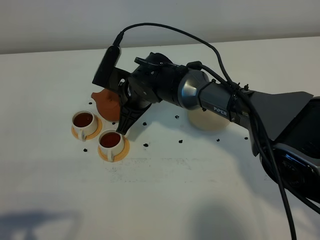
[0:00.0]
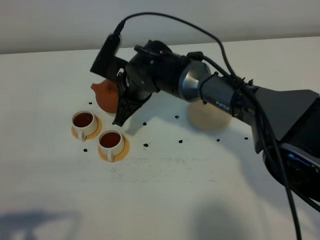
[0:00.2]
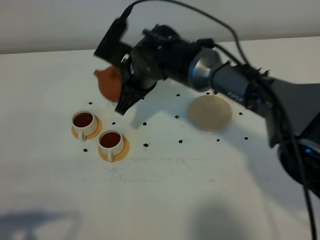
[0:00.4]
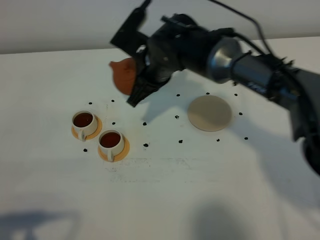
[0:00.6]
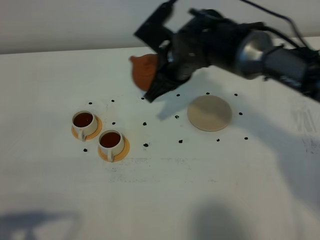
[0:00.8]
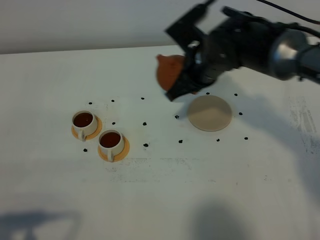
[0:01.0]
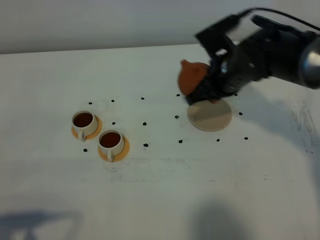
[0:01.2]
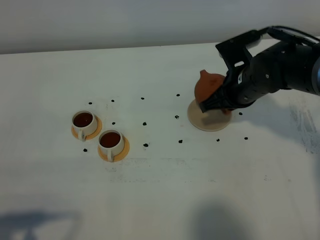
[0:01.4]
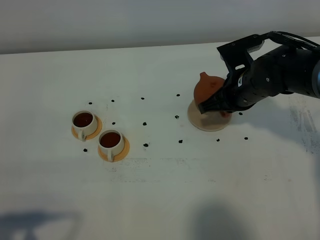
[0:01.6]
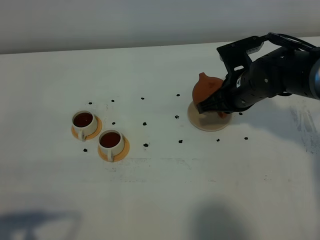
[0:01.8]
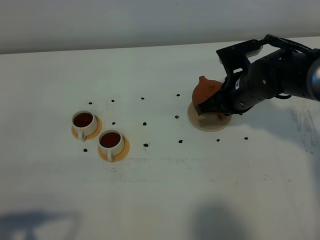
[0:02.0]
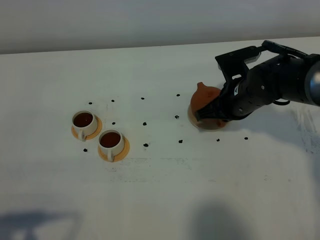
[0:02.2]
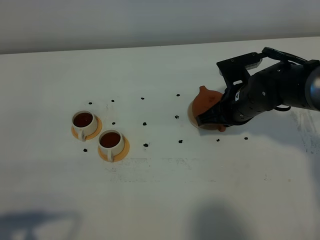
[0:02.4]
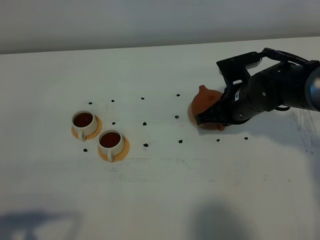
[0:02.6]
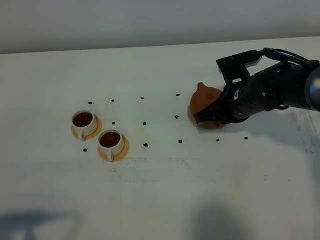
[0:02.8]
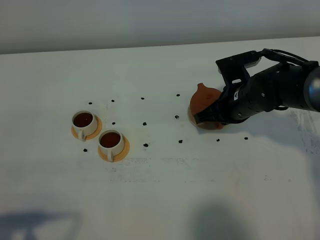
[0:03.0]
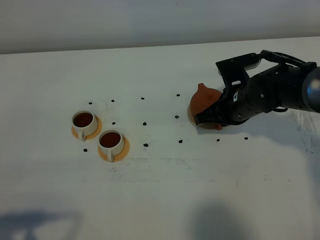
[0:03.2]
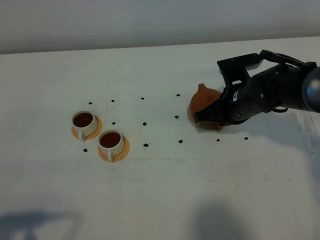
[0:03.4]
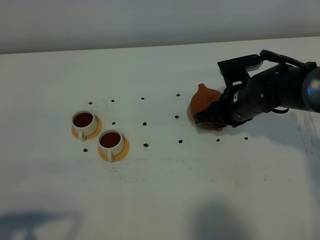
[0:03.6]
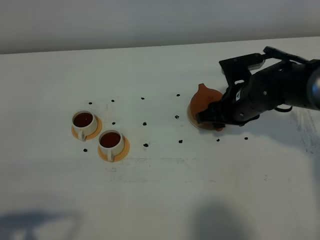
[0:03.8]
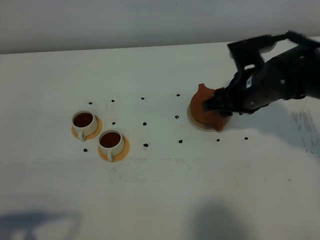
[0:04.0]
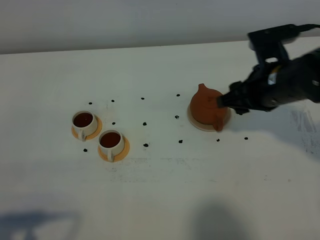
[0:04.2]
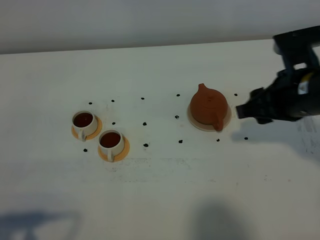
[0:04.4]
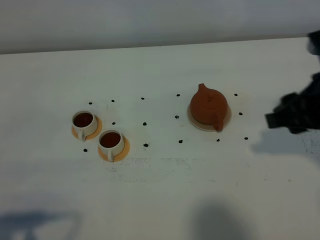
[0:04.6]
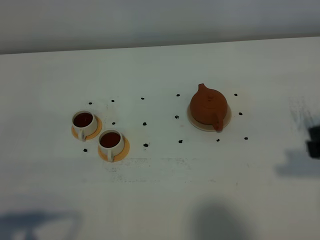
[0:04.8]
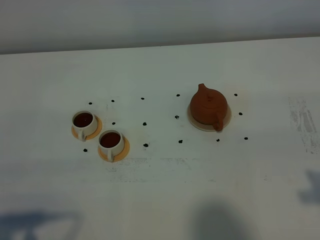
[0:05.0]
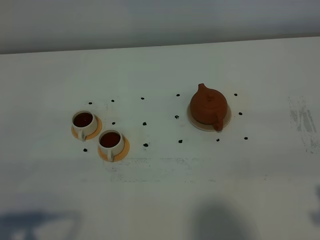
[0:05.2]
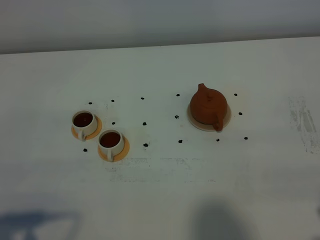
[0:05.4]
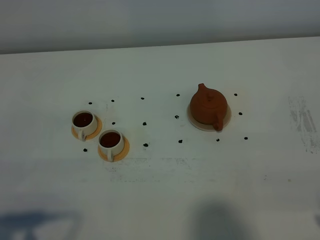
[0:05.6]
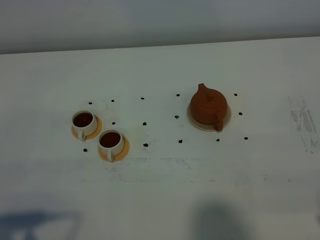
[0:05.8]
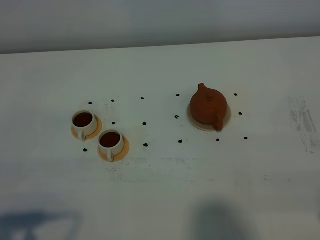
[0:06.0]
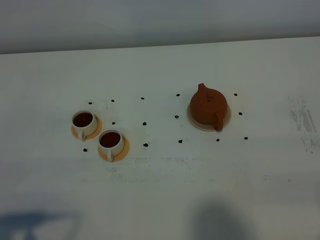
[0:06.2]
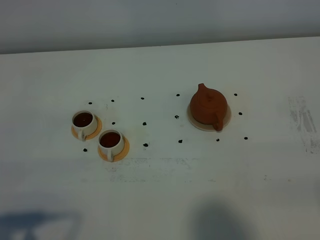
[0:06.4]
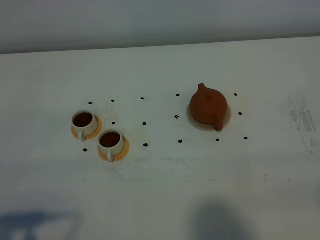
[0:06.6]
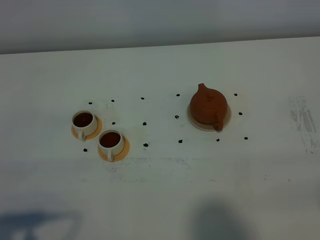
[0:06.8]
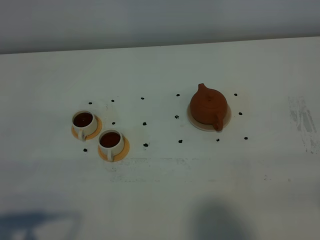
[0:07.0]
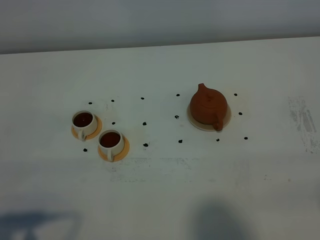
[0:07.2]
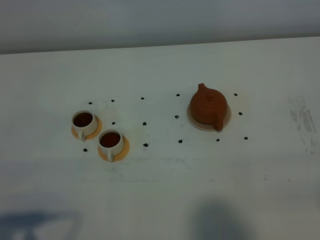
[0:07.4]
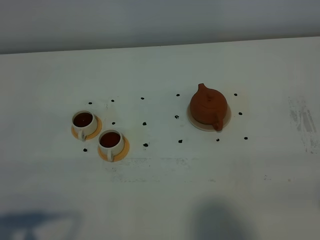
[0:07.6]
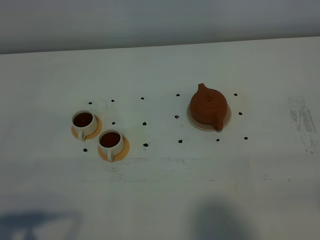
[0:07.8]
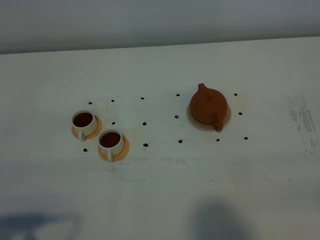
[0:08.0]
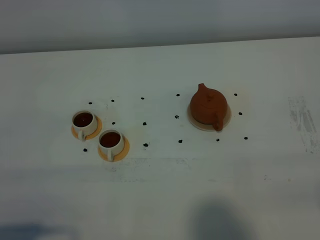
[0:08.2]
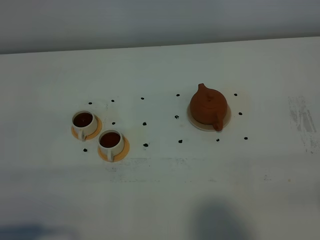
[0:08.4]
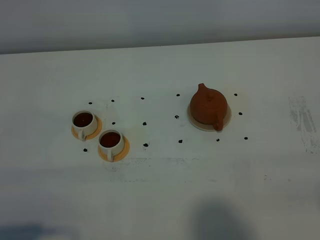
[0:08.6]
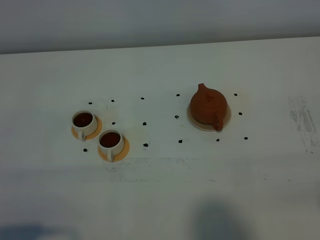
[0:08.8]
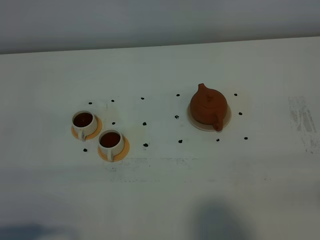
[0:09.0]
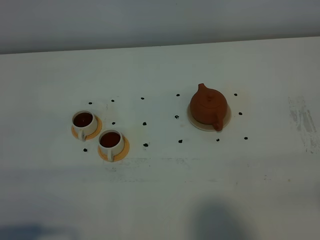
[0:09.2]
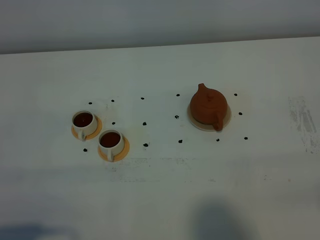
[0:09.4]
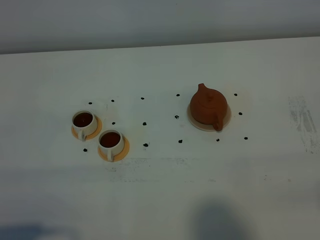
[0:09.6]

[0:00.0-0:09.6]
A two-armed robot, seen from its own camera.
Task of the whole recording: grasp the brown teapot and pour the tea into the two white teacups one by one, put the brown teapot back in its original place.
0.0 to 1.6 s: The right gripper moves to the right, some 20 cm.
1.6 to 3.2 s: The grippers move only a little.
3.2 to 4.8 s: The right gripper heads backward, upward and to the right, covering some 30 cm, and opens.

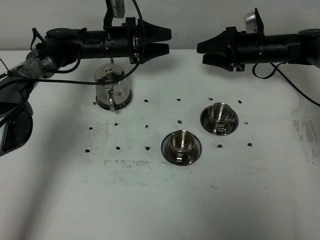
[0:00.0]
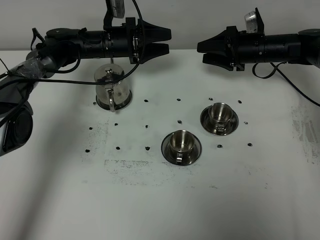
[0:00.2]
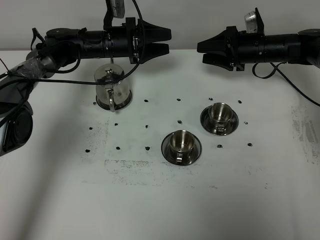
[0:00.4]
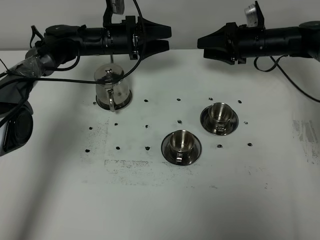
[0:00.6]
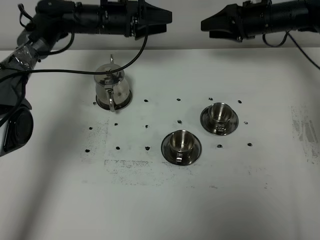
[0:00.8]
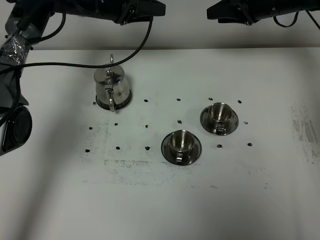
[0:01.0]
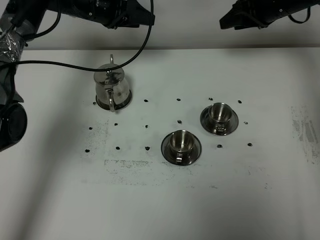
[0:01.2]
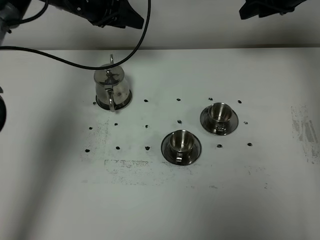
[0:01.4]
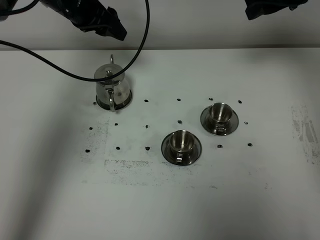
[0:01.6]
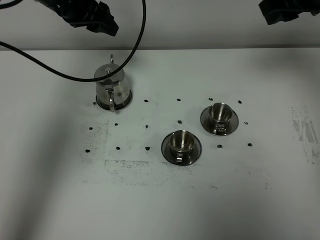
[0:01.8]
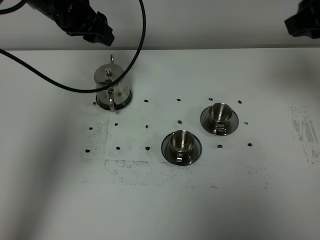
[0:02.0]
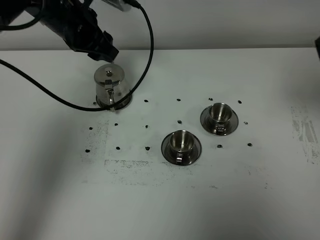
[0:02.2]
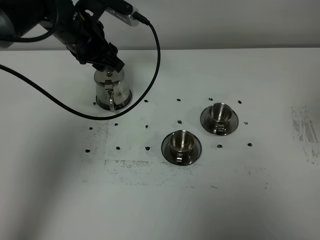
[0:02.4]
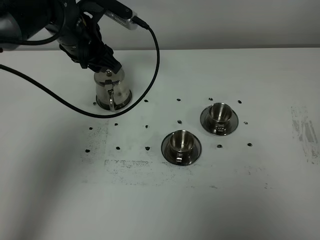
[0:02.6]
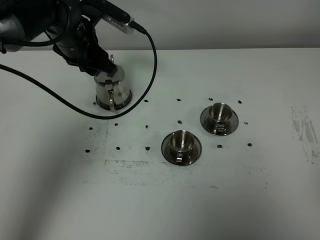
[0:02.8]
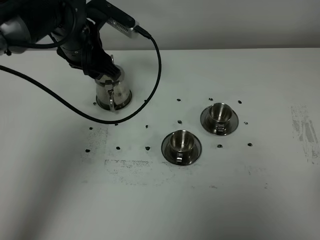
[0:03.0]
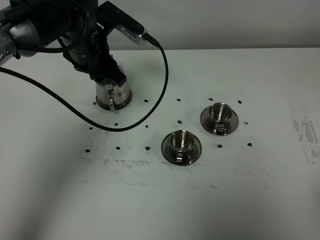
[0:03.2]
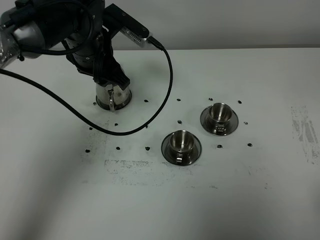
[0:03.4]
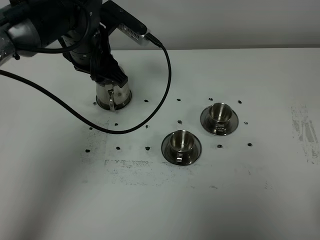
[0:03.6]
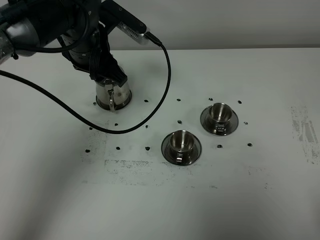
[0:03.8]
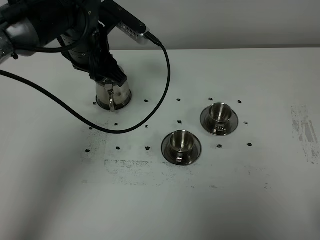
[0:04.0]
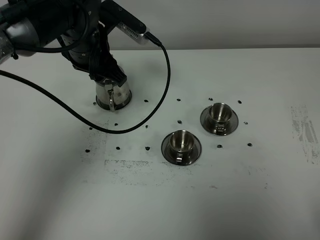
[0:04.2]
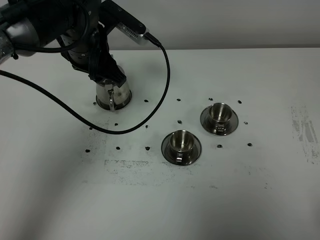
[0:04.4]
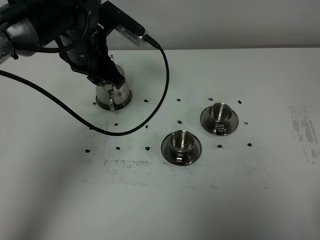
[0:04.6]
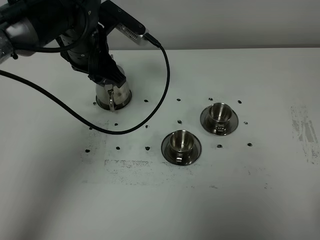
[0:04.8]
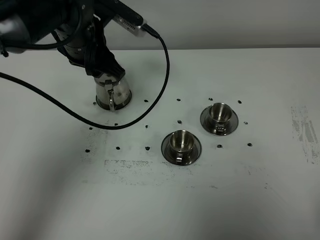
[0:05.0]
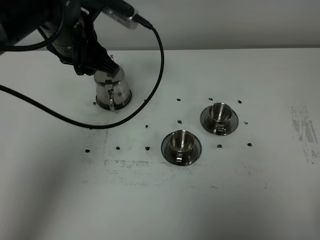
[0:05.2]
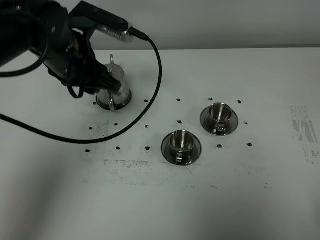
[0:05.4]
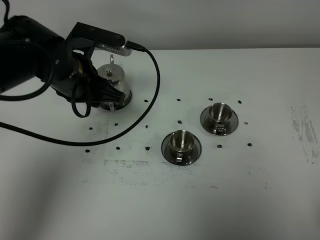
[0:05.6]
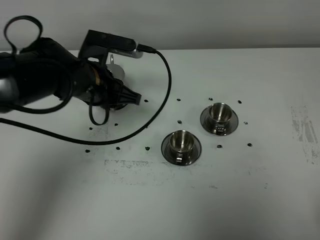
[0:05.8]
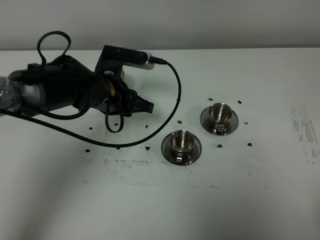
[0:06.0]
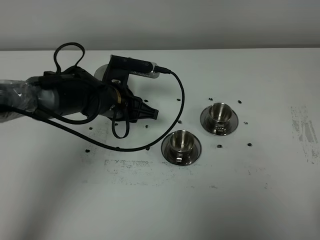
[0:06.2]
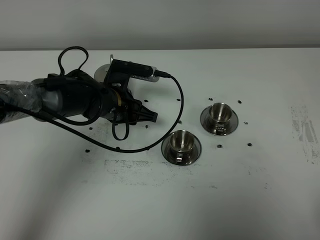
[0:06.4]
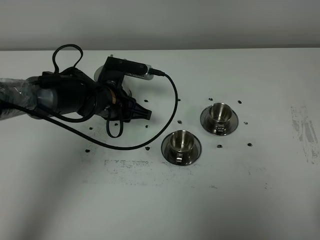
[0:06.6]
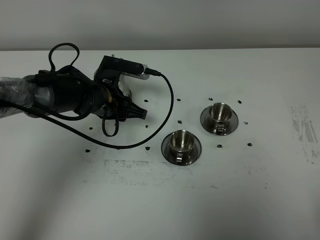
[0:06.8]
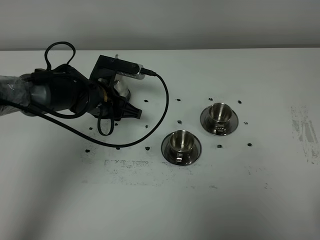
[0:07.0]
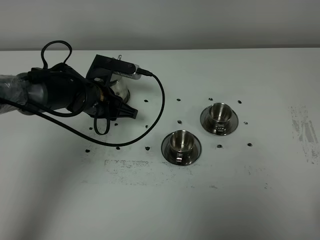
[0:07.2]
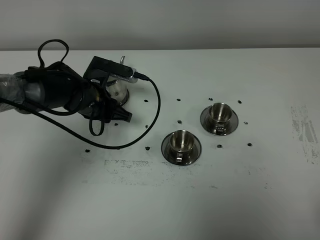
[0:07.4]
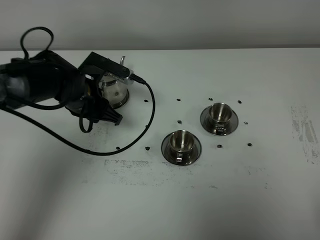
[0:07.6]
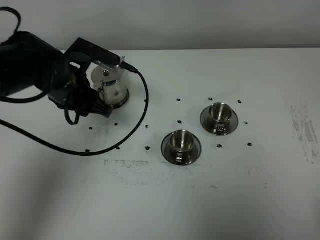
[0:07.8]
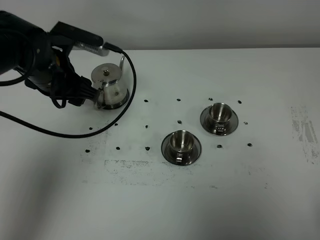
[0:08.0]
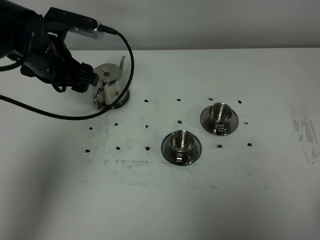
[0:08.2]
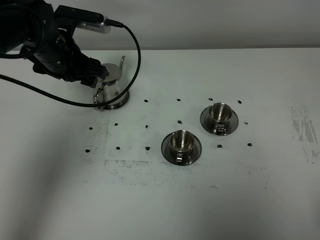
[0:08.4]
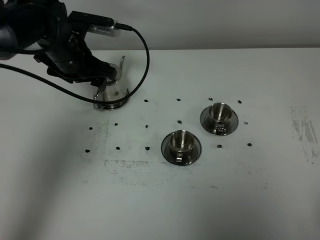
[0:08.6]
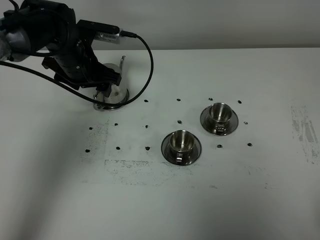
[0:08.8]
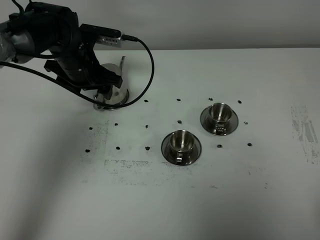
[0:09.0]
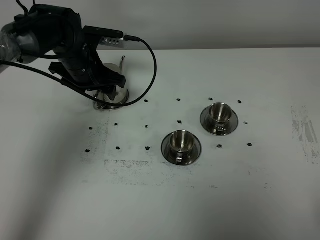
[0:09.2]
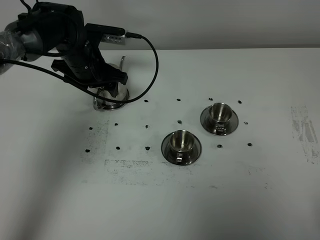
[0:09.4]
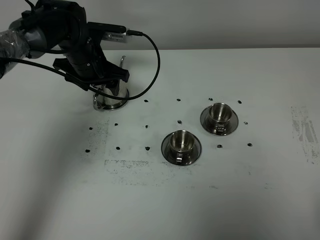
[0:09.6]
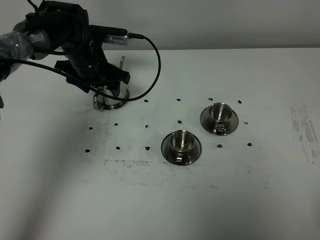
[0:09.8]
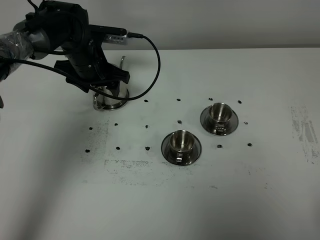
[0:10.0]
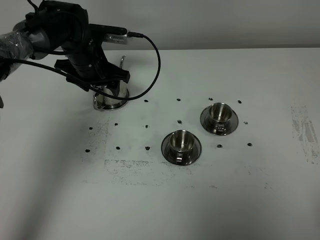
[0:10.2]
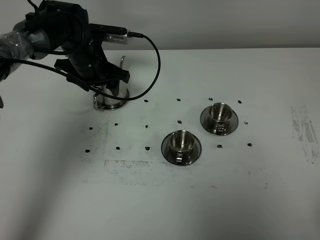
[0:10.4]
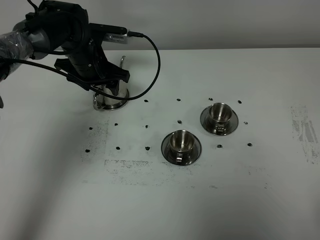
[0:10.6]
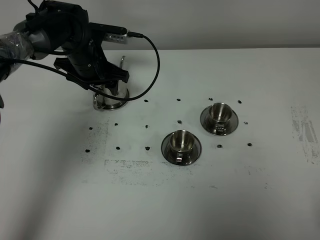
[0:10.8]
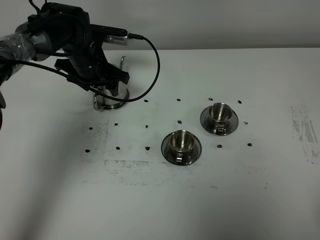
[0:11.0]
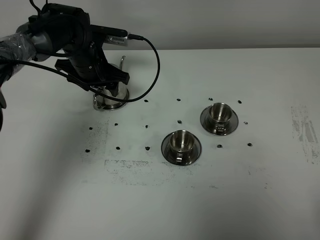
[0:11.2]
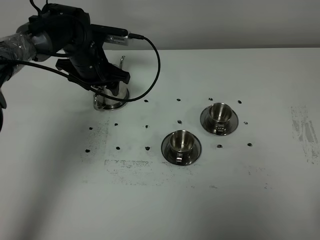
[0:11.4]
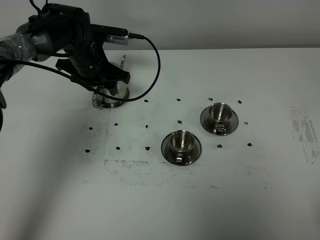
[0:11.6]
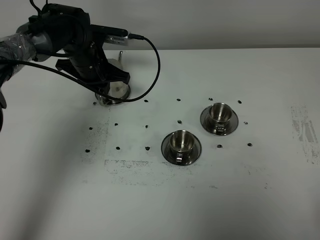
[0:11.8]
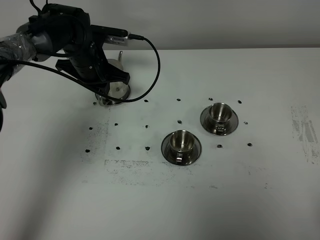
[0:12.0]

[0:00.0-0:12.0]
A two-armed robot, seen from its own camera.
Task of the whole recording: grasp the stainless steel teapot and pour the tea into the two stainless steel teacups one by one, put the stainless steel teapot back in its original place.
0.0 to 1.6 s: The left gripper travels upward by some 15 cm; the right gripper goes some 20 cm upward.
1.6 to 3.0 s: The right gripper heads backward, covering about 40 cm, while the left gripper is displaced backward by roughly 10 cm.
3.0 to 4.4 s: The right gripper shifts some 10 cm downward.
4.4 to 6.0 s: The left gripper goes approximately 10 cm downward.
6.0 to 7.6 s: The left gripper moves some 5 cm.
7.6 to 9.0 s: The left gripper heads forward, covering roughly 5 cm, and opens up.
9.0 to 10.4 s: The grippers move only a little.
10.4 to 12.0 s: The left gripper closes.

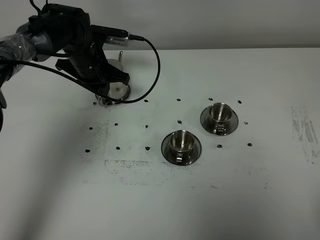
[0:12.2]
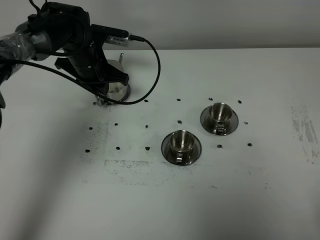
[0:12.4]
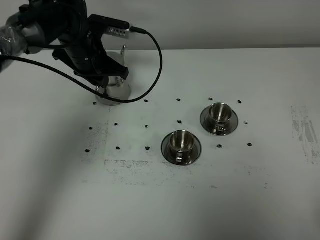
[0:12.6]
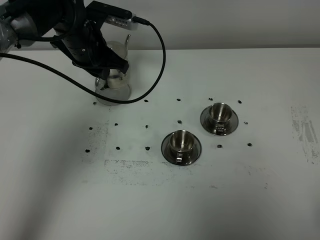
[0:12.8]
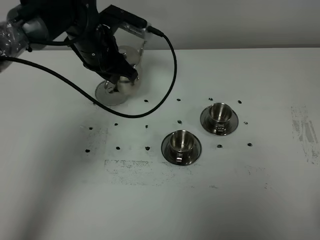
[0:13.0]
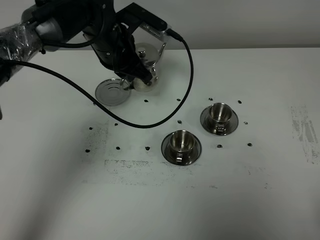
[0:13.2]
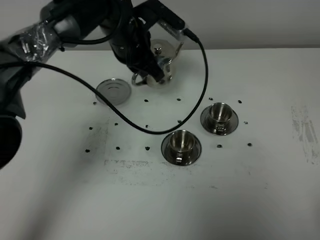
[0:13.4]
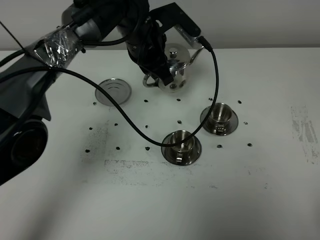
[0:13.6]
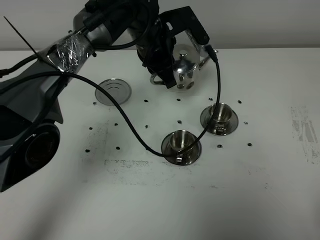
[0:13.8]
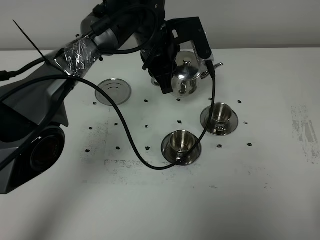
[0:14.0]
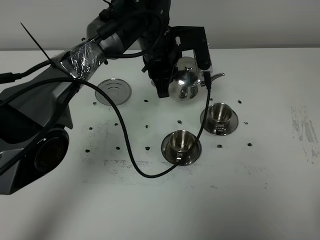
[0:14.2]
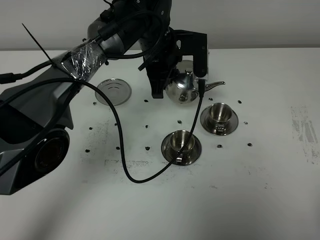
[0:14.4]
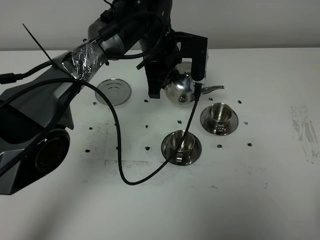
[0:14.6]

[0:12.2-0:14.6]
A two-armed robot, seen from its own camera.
Task of the whole recording: grasp the stainless steel teapot and pour the tea into the two stainless steel teacups one by one, put the stainless steel teapot back in its original place.
12.2 to 13.4 s: The left gripper shifts some 15 cm to the right and upward.
13.4 to 14.6 s: The left gripper shifts approximately 5 cm to the right. Meanwhile the right gripper closes.
